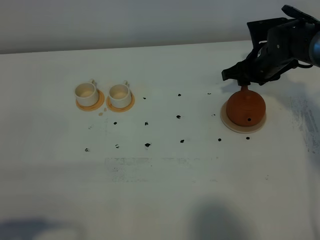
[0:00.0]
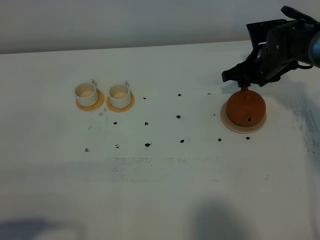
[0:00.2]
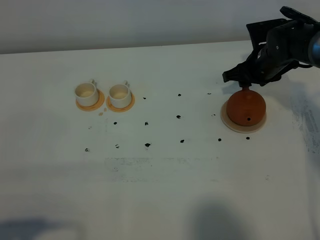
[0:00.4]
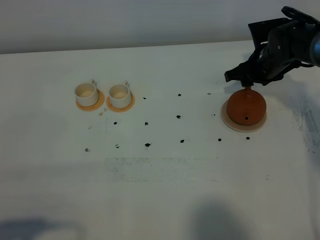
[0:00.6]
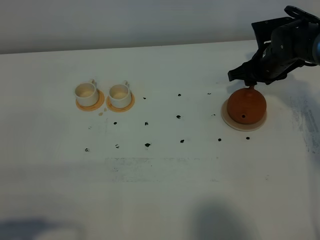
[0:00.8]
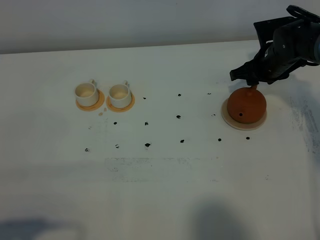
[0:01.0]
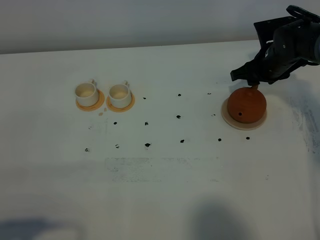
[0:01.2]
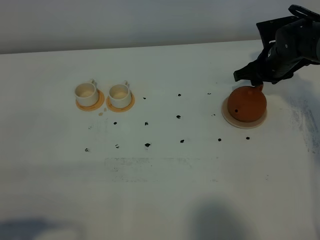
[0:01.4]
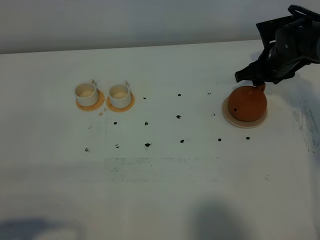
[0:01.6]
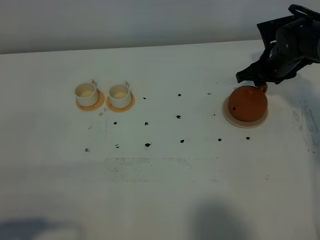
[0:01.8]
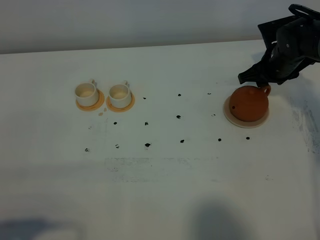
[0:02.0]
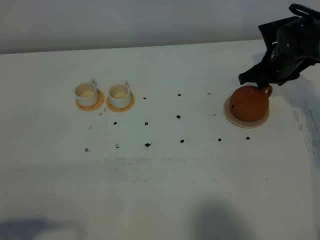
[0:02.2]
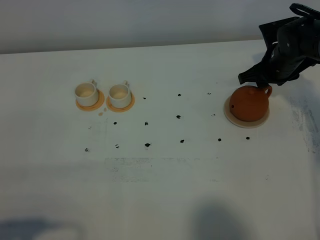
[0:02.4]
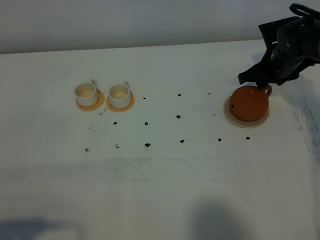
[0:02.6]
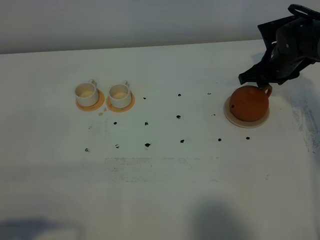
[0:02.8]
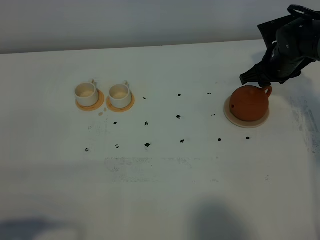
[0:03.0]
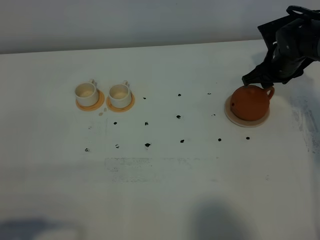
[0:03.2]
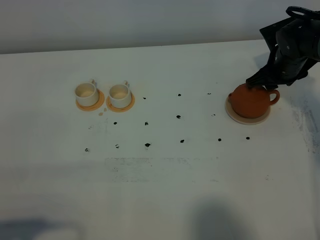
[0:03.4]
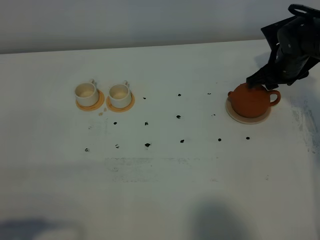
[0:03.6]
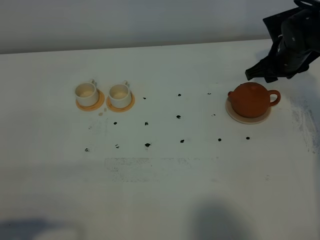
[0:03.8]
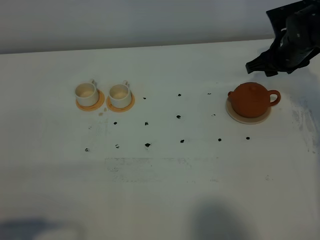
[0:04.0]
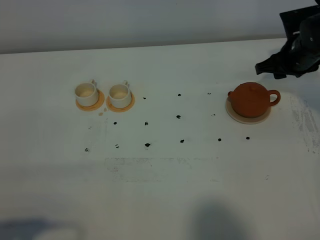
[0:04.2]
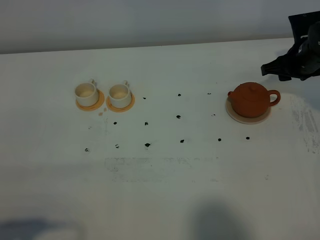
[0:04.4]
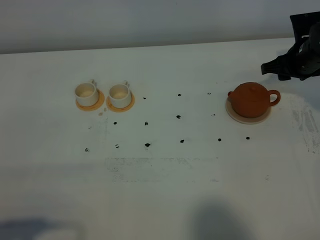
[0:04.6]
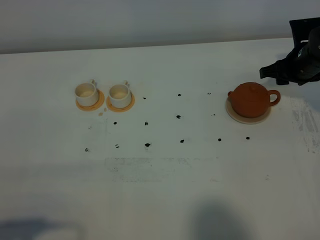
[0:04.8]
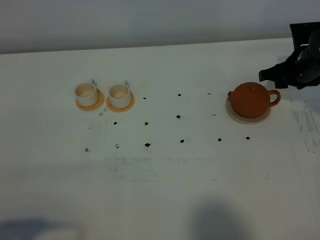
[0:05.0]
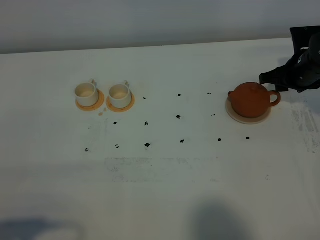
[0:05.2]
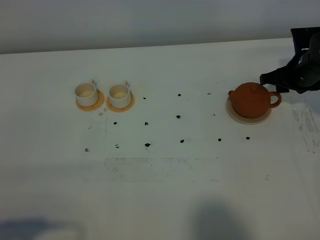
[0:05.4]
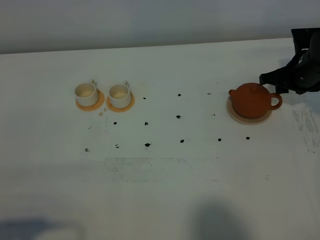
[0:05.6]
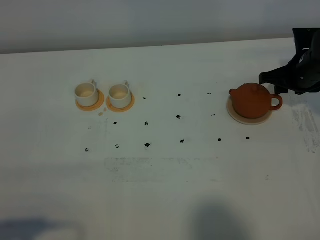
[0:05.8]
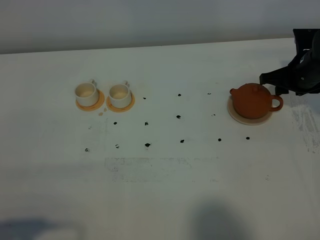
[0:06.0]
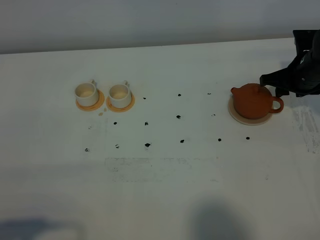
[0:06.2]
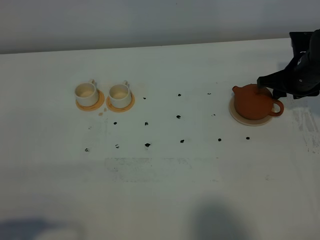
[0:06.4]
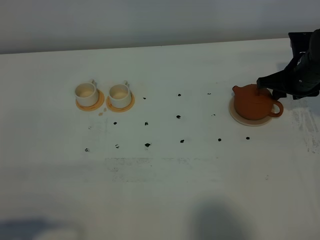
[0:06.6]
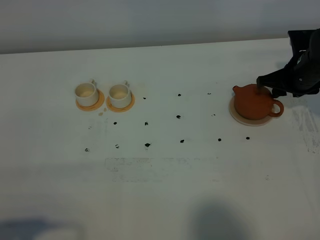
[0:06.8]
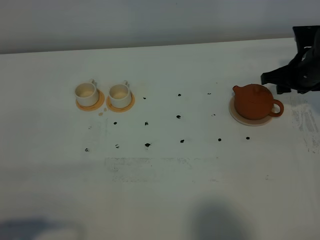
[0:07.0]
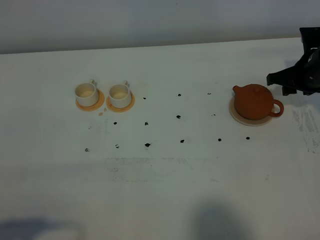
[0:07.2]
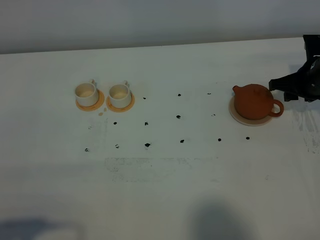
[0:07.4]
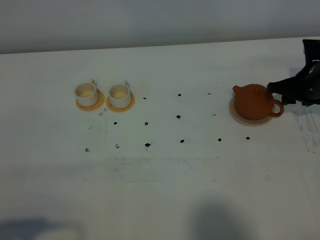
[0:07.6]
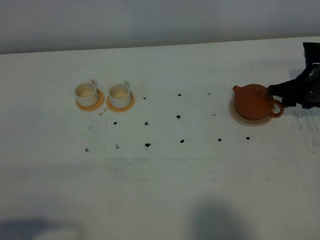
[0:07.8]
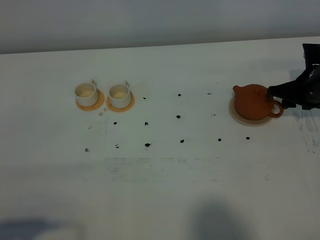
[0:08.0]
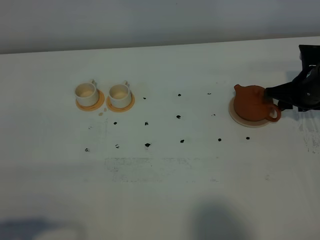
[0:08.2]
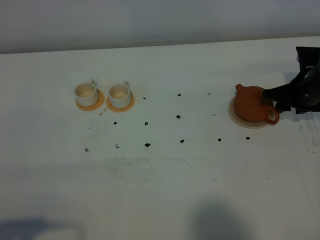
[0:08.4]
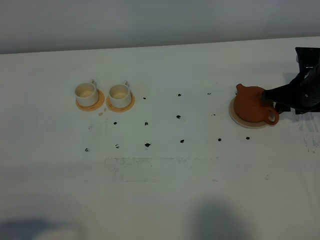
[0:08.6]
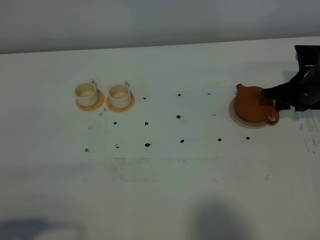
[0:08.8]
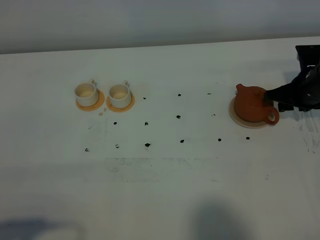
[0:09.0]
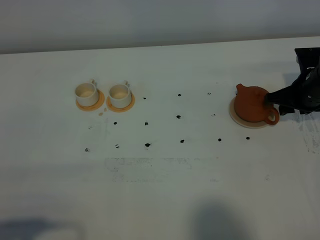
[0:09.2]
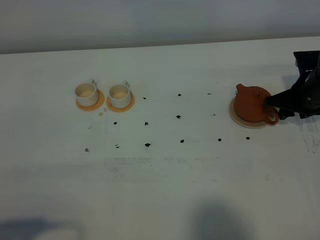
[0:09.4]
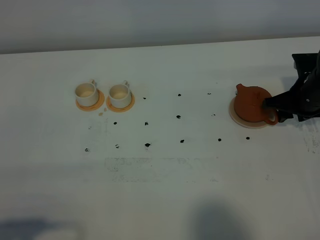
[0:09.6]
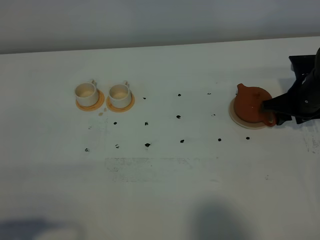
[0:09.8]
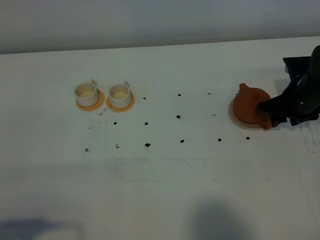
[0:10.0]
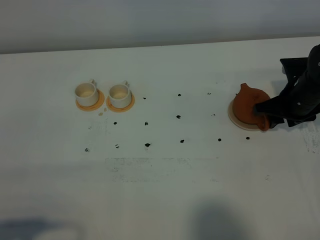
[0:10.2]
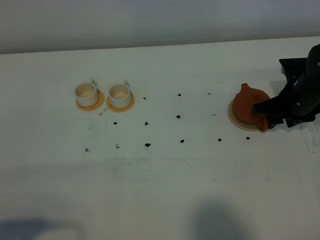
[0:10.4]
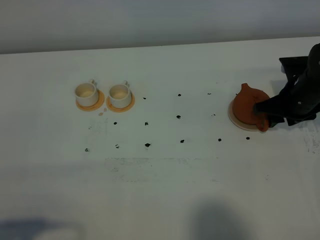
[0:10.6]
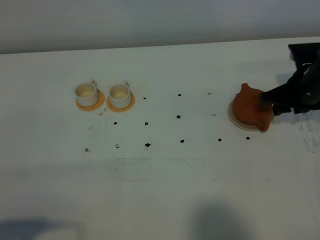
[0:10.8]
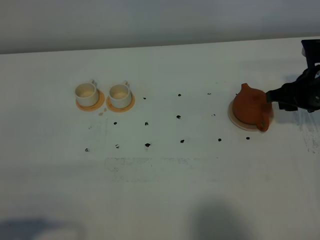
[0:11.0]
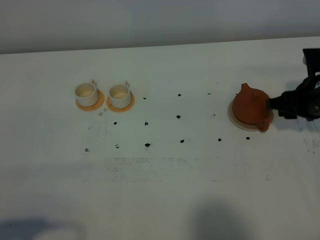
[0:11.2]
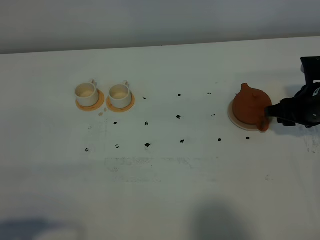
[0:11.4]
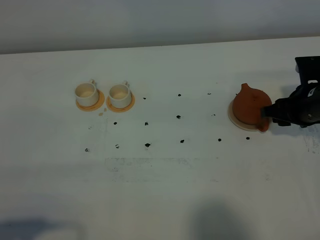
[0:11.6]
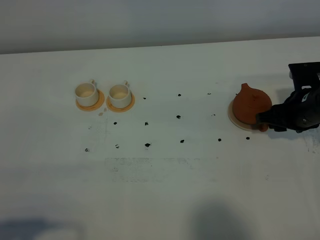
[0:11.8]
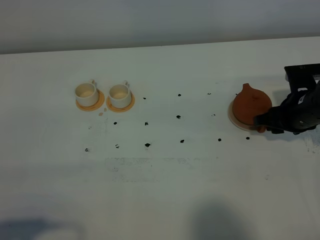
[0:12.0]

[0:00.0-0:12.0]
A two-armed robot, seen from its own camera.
Task of the whole recording: grasp the brown teapot and pour the tea into the two white teacups one by one, put the brown teapot back in its original place.
0:00.0 to 0:01.6: The grippers stay close to where they were, moving slightly.
0:01.6 to 0:03.0: Neither gripper changes place.
0:03.0 to 0:06.0: The grippers stay close to where they were, moving slightly.
0:06.0 to 0:10.4: There are only small adjustments of the grippers.
0:10.4 to 0:12.0: There are only small adjustments of the grippers.

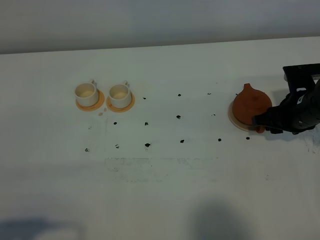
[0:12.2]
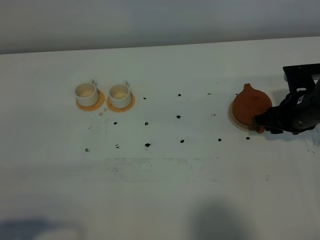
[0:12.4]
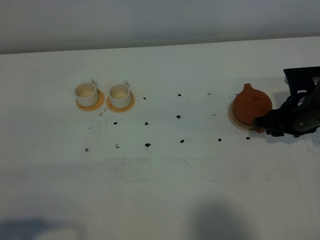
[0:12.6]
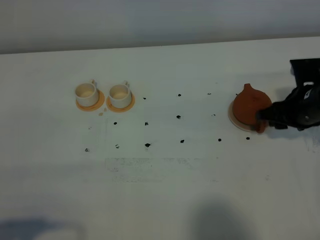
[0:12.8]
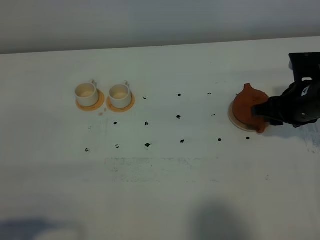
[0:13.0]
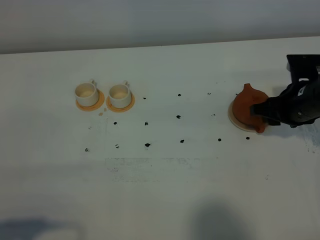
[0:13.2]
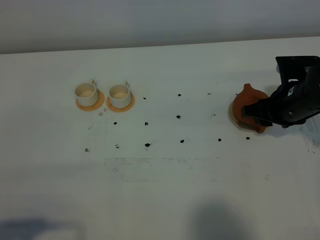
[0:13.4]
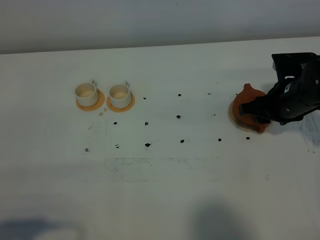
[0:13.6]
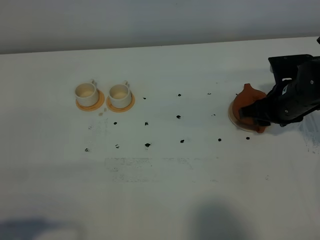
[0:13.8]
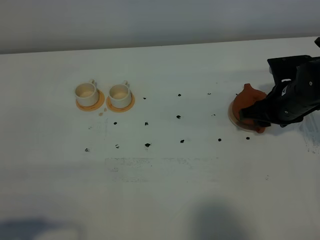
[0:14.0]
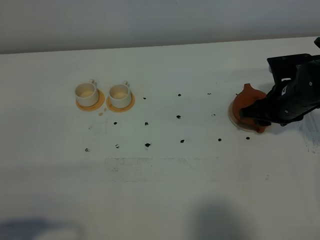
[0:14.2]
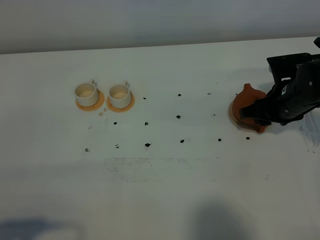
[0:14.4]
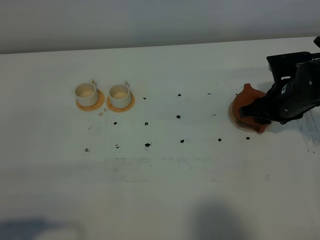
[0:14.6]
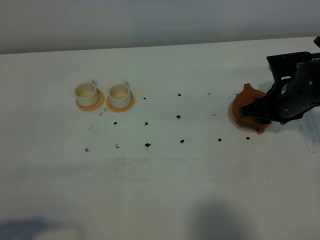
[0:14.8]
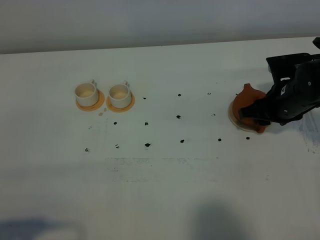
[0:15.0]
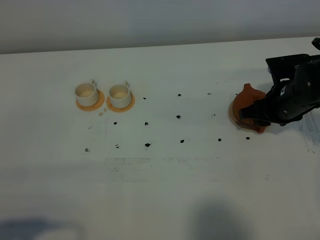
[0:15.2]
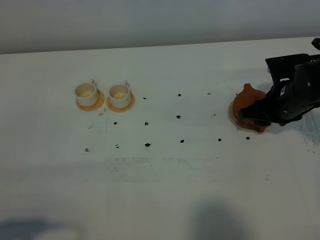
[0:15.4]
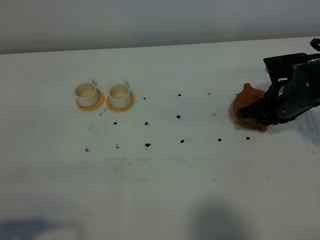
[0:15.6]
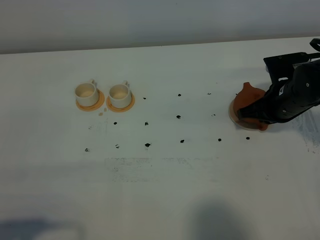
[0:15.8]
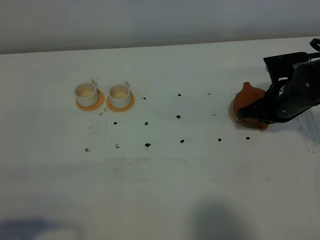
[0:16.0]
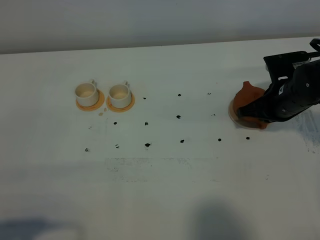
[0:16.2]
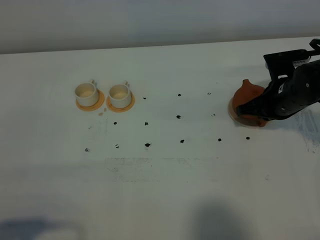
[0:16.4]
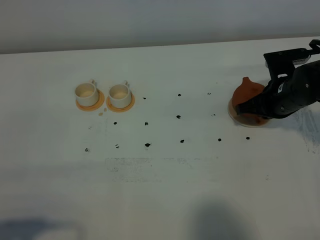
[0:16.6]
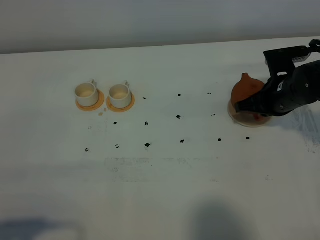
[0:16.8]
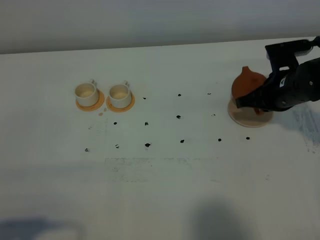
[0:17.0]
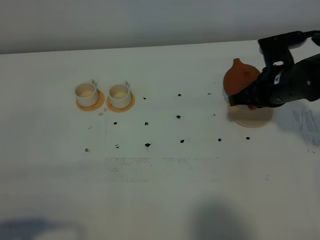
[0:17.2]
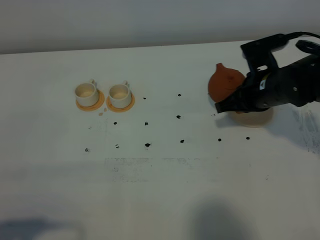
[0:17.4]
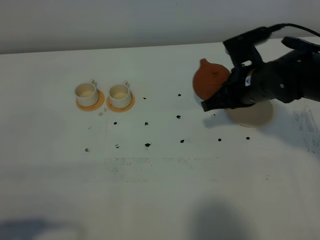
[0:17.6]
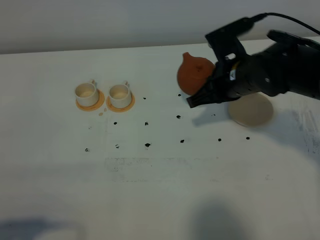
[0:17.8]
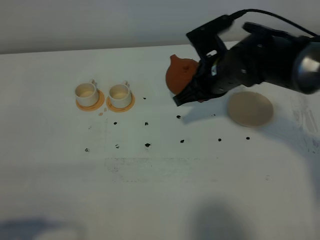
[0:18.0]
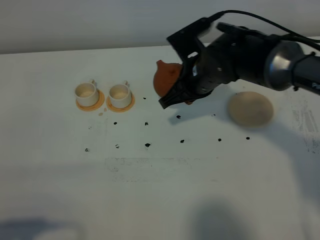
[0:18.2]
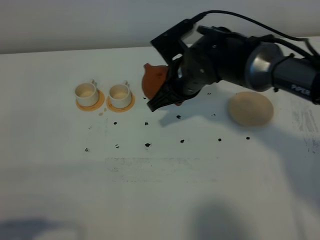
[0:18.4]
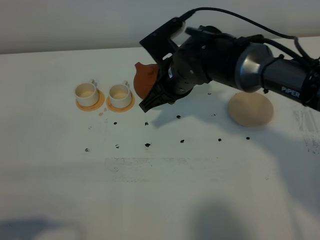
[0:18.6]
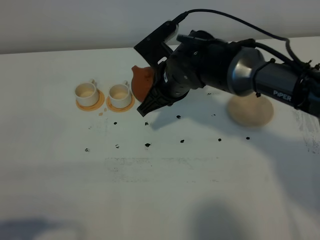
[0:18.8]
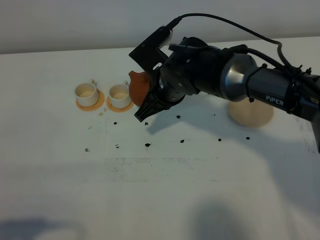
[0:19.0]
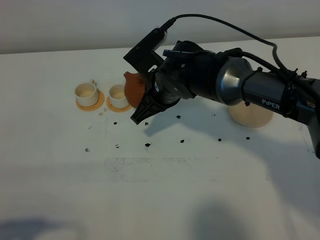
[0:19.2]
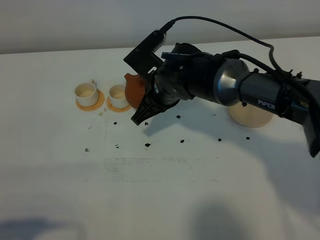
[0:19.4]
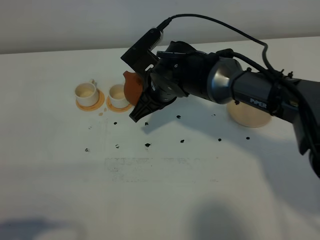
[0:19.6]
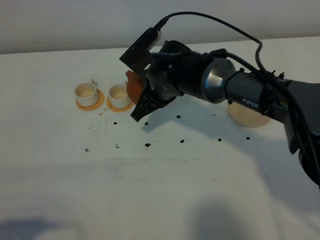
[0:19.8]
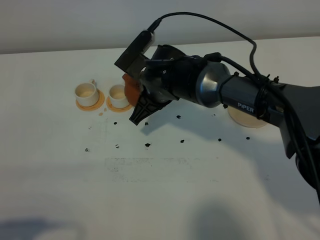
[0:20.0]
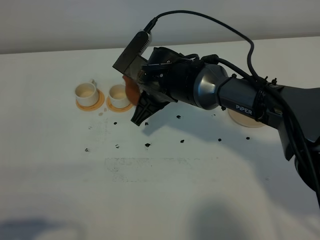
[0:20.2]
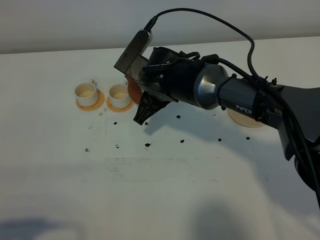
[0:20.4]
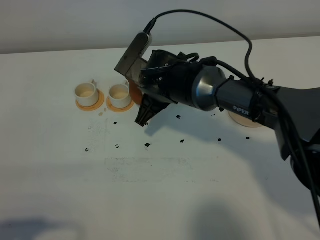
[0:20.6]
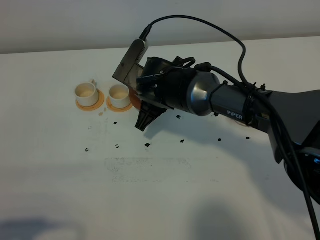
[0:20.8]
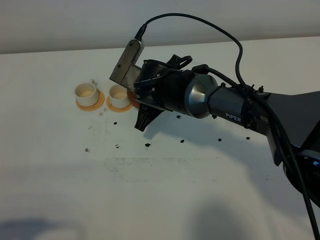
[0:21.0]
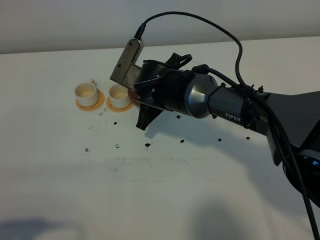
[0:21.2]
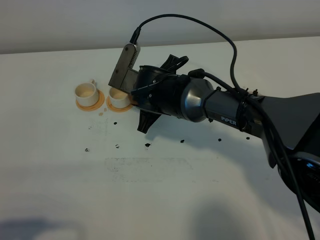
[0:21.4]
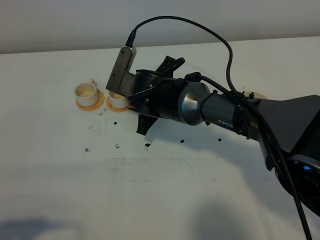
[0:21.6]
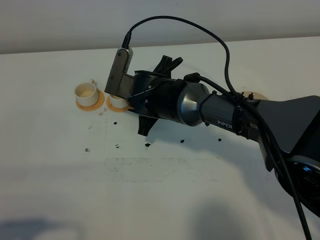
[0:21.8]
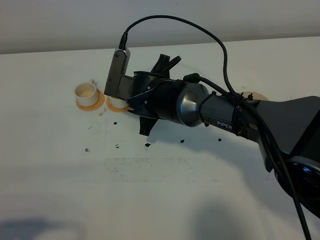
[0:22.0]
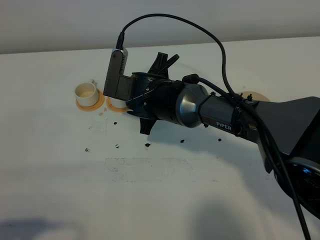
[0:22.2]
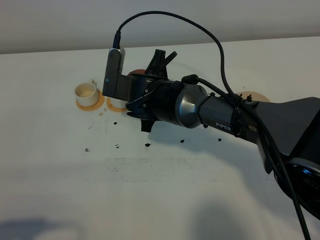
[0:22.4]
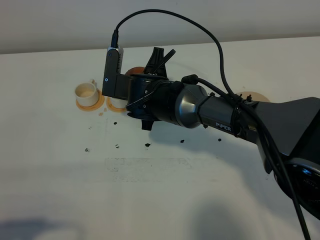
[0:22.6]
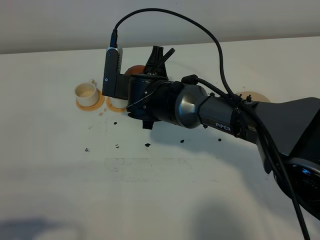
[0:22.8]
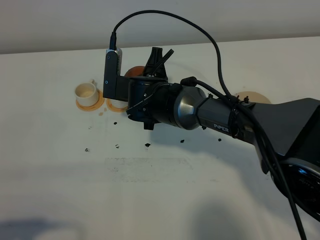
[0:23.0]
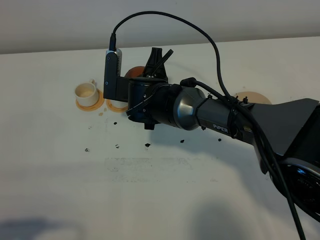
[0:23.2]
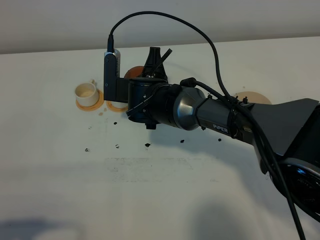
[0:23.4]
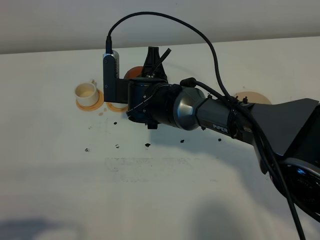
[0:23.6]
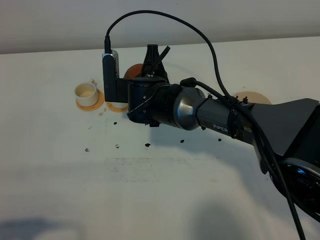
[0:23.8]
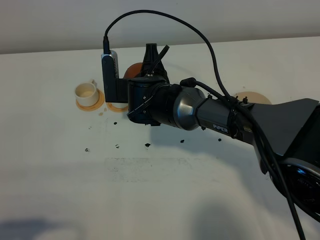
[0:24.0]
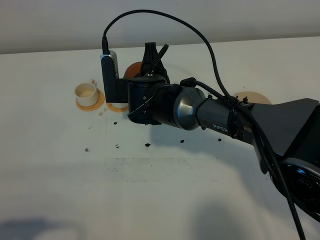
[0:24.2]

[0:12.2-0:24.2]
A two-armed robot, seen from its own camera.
Task of the whole recording: grasp the brown teapot and pour the tea into the two white teacups one by one, put the brown teapot back in its original place.
Step, 0:12.2 to 0:17.0: Pick up the teapot with the right gripper.
0:12.2 to 0:13.8: There are only small adjustments of the grippers.
0:13.8 to 0:15.2: Both grippers stay put.
0:15.2 to 0:16.6: The right gripper closes its fingers.
0:16.6 to 0:18.2: The right gripper goes about 15 cm to the left.
0:18.2 to 0:19.8: The right gripper heads to the left, covering approximately 5 cm.
0:19.8 to 0:21.2: The grippers stay close to where they were, moving slightly.
0:21.2 to 0:22.6: The grippers move only a little.
0:22.6 to 0:24.2: The grippers move only a little.
